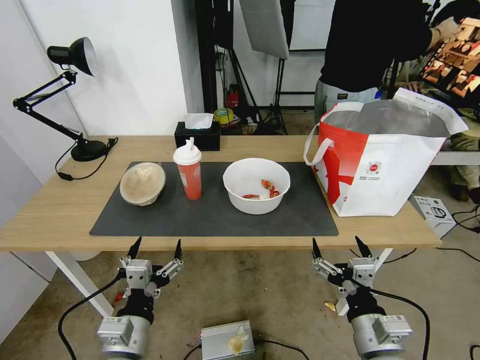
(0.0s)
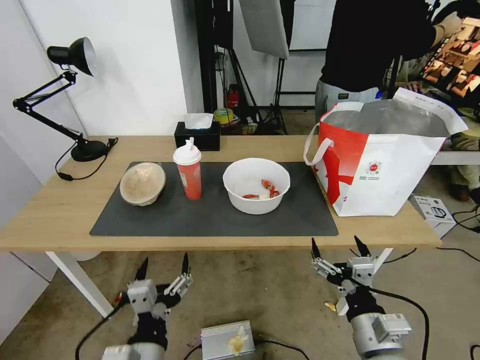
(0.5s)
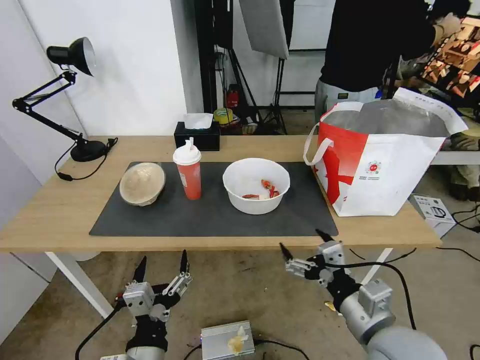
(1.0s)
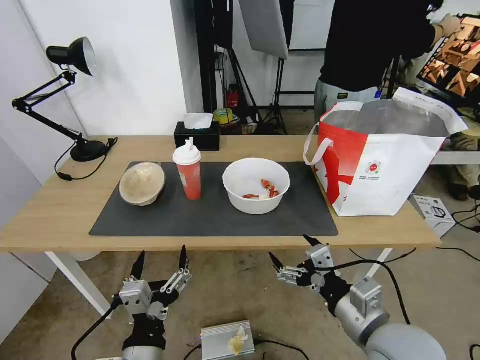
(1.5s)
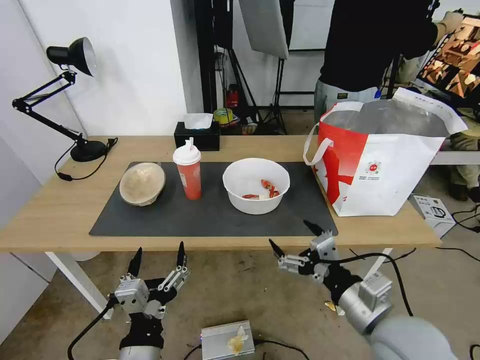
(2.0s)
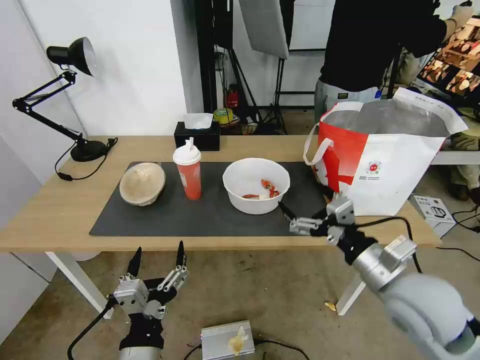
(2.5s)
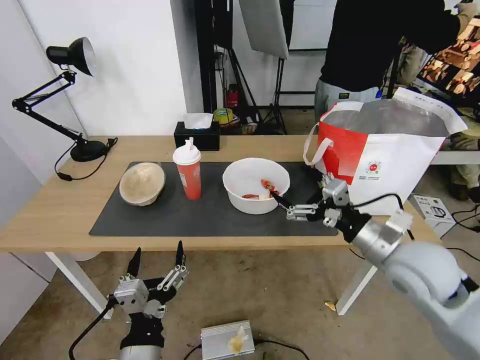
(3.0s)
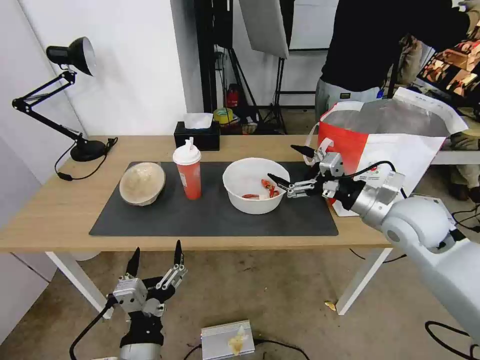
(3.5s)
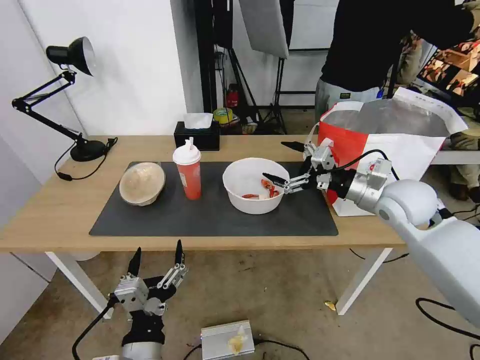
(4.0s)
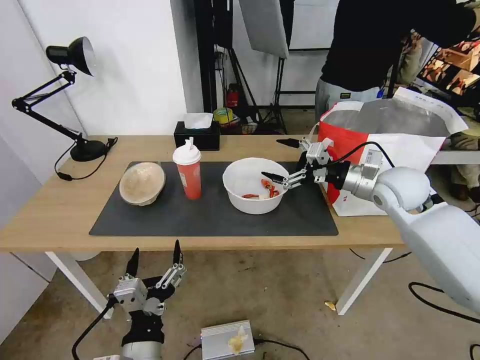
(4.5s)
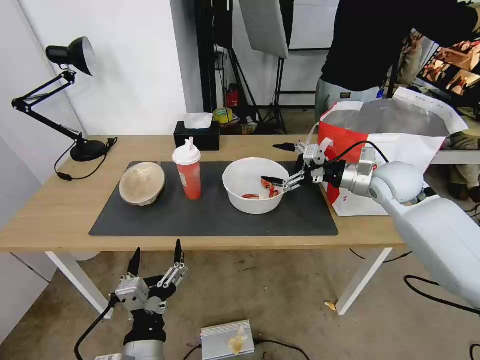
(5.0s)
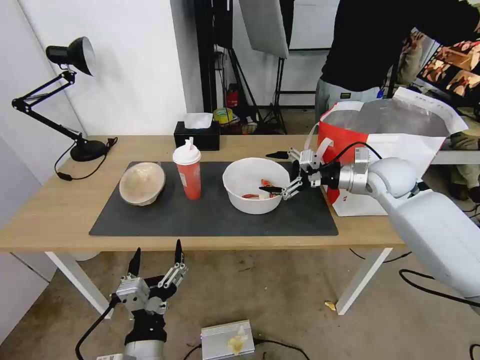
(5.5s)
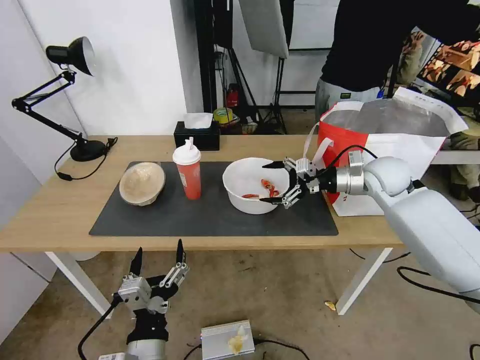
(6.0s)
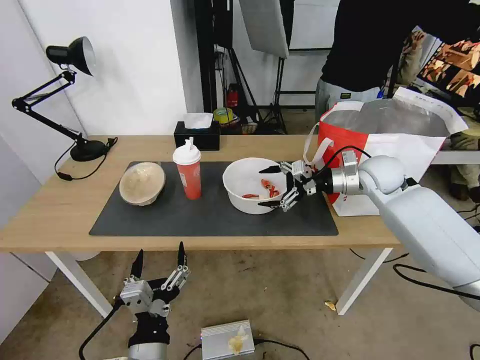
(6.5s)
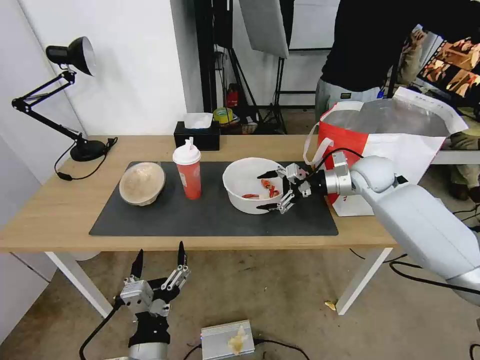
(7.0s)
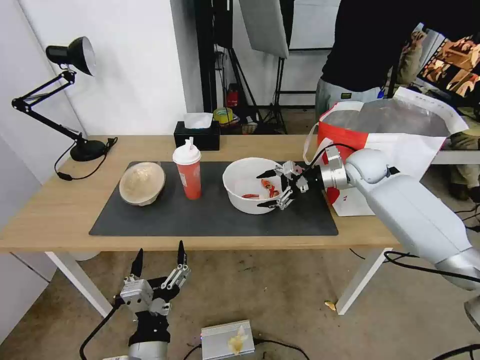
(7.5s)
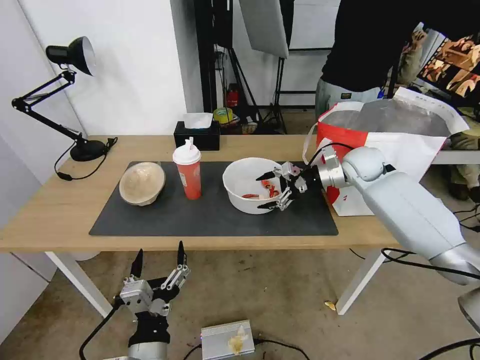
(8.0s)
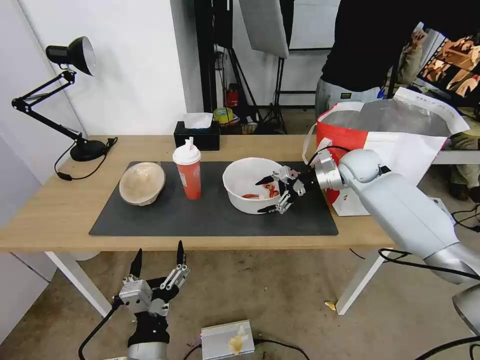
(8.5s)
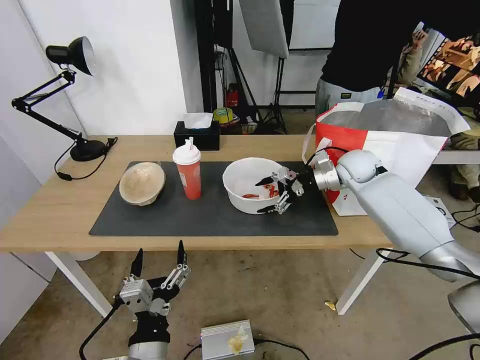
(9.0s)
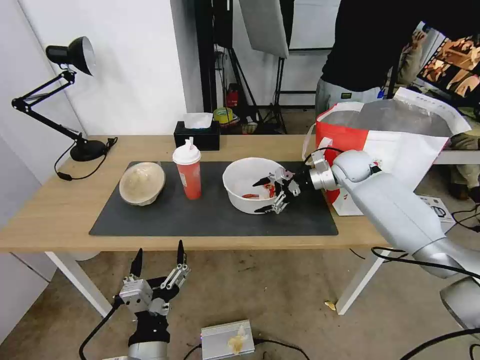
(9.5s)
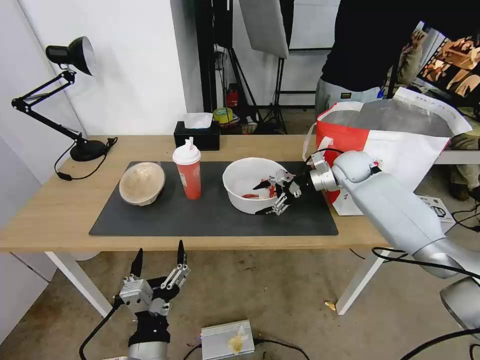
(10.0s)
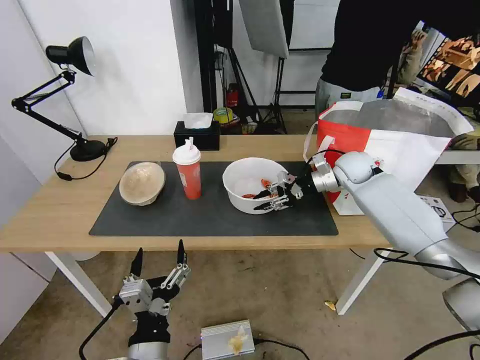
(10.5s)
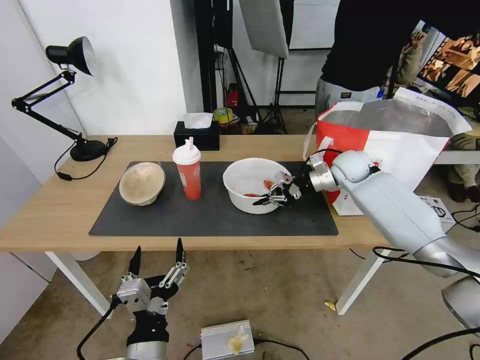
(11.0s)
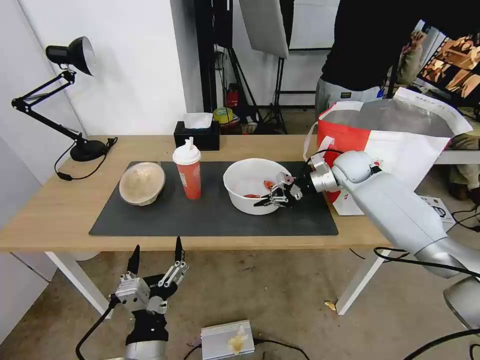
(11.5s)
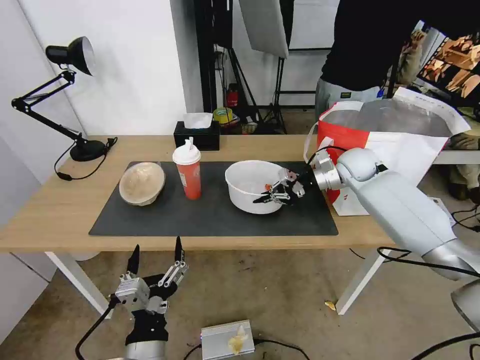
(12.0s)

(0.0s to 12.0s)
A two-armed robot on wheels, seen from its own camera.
Task of the whole recording: Pick up the trash from the table and place it into the takeout bag.
2.0s - 4.0s: The right gripper shifts some 25 cm forward.
4.0s - 6.0s: The right gripper travels forward by some 10 cm.
6.0s - 8.0s: The right gripper travels forward by some 5 cm.
8.0s - 10.0s: The grippers stay close to where they were, moving slightly.
10.0s - 12.0s: The right gripper closes its fingers.

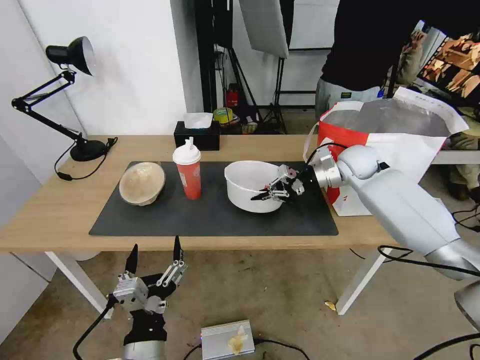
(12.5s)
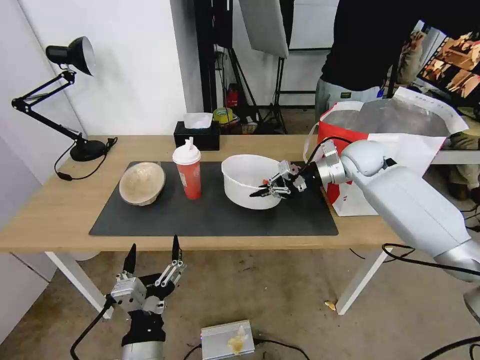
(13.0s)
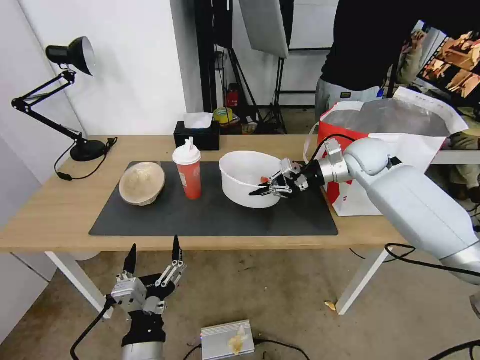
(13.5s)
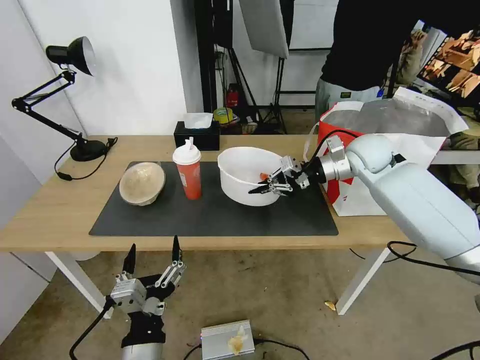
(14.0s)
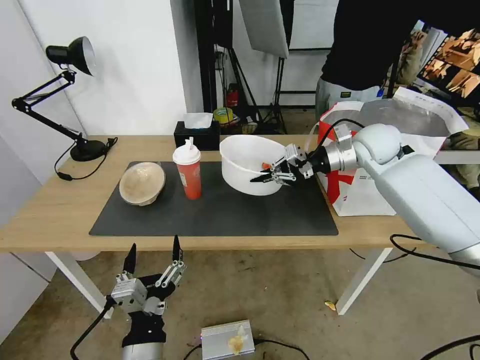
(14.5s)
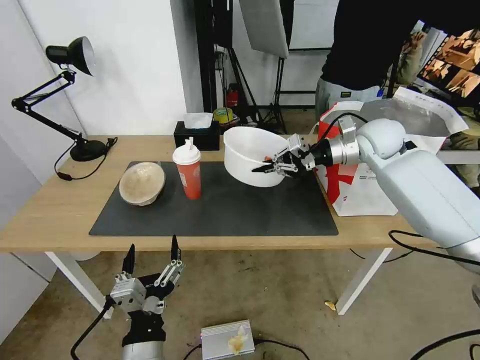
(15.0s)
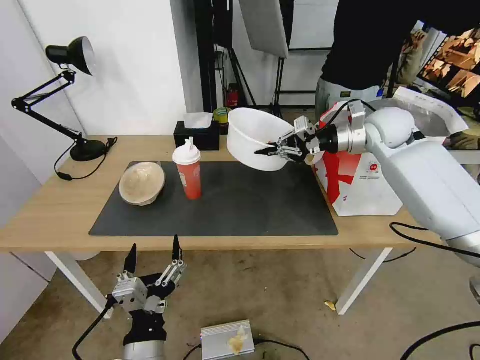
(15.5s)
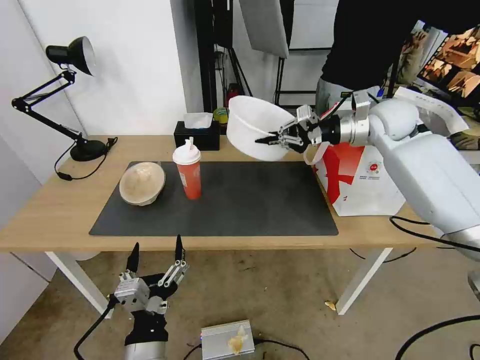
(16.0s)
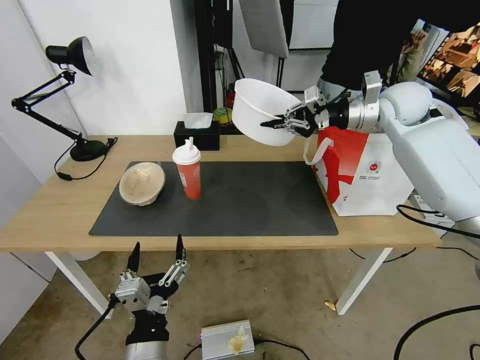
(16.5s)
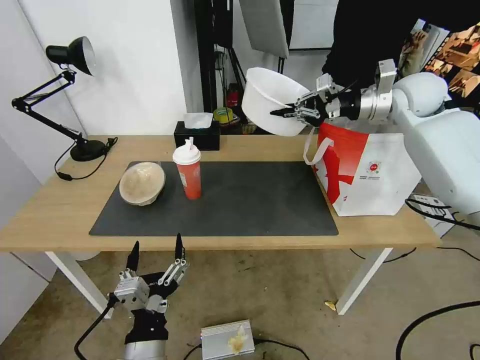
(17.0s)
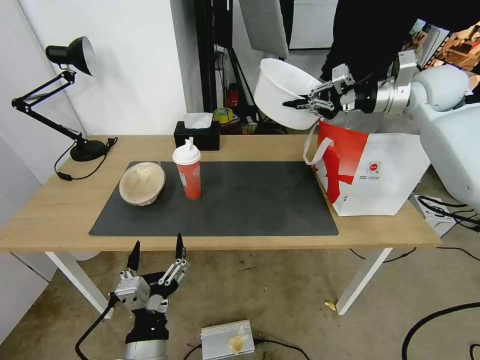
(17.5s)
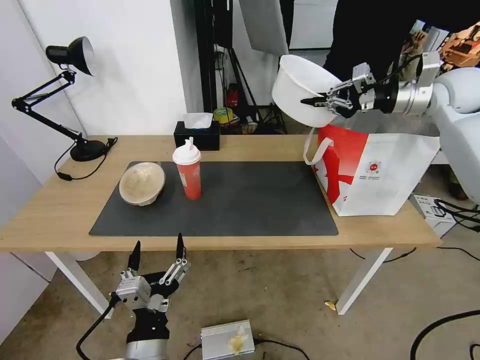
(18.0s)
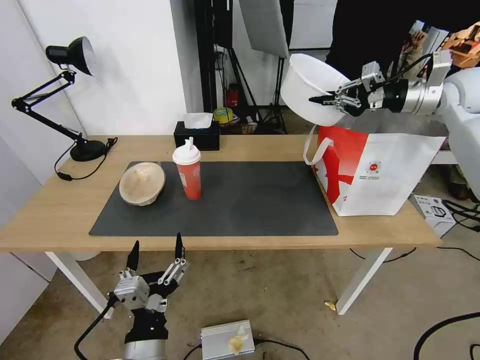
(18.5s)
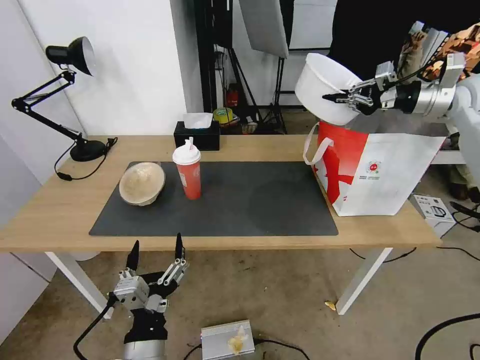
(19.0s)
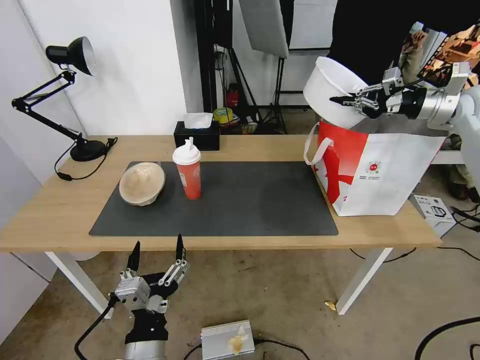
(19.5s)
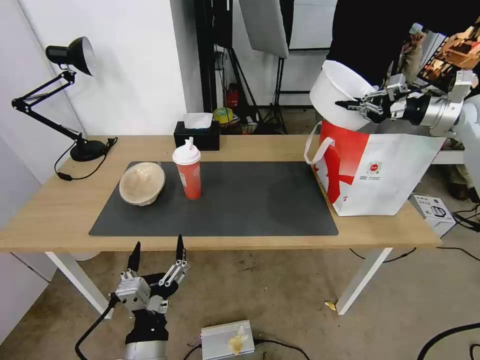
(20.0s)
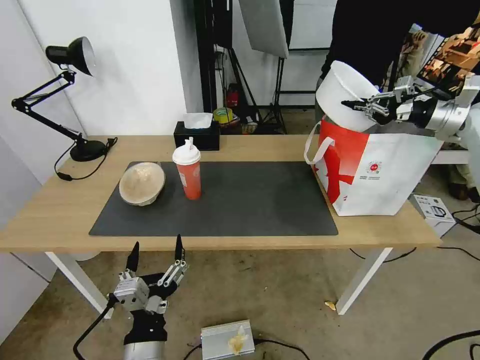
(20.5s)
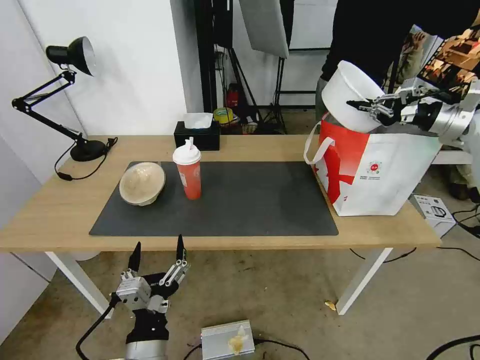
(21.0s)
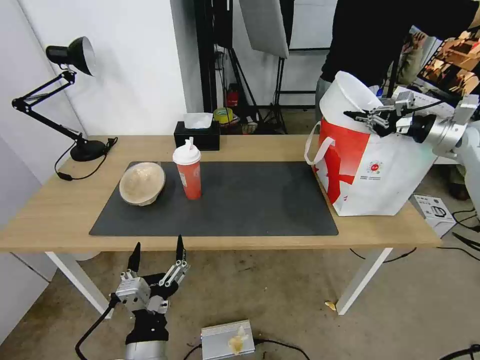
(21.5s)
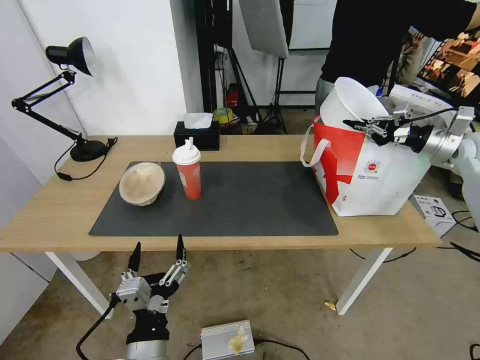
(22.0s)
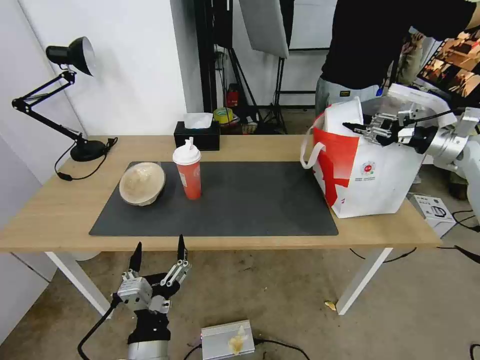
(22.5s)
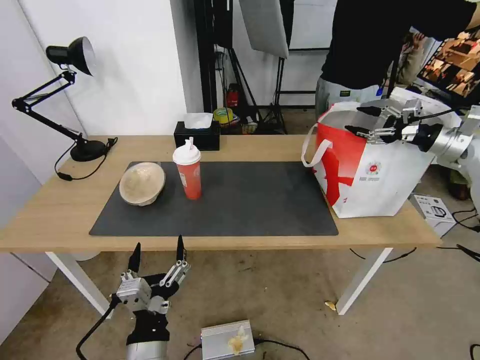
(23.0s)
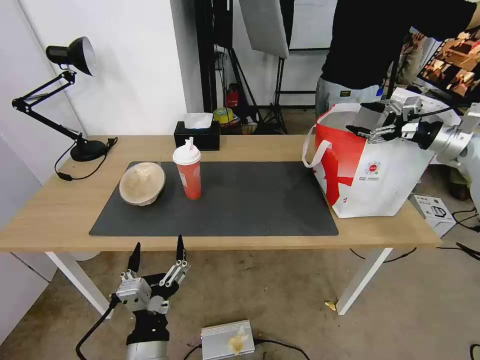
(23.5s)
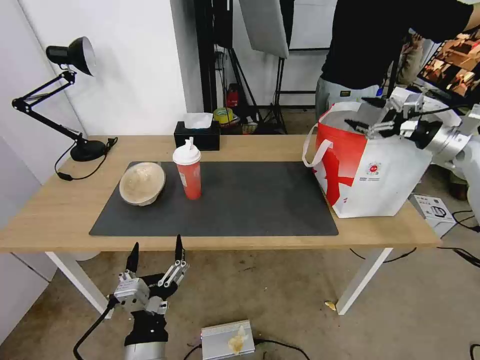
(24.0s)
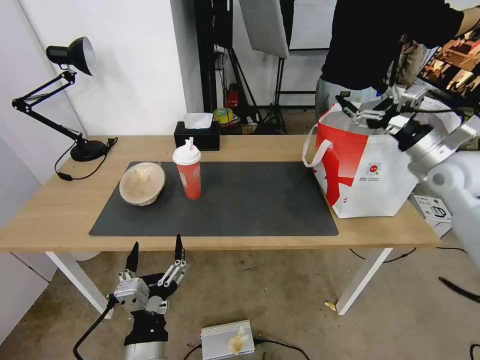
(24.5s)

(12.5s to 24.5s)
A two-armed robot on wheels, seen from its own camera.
Task of the whole recording: Pick up the trash from the table and place it into the takeout bag.
12.5s - 14.5s: The right gripper shifts about 5 cm upward.
14.5s - 16.5s: The right gripper travels upward by approximately 10 cm.
16.5s - 18.5s: The right gripper shifts roughly 10 cm to the right.
18.5s - 20.5s: The right gripper moves to the right and downward, approximately 10 cm.
20.5s - 22.5s: The right gripper heads downward, covering about 5 cm.
22.5s - 24.5s: The right gripper shifts roughly 10 cm to the left and backward, and opens.

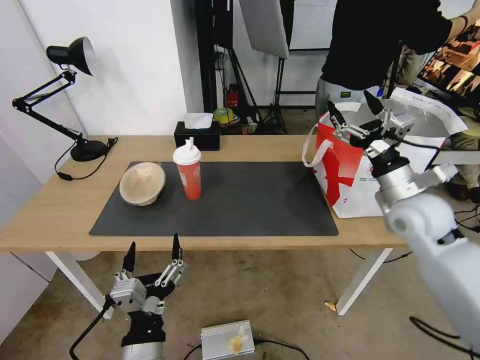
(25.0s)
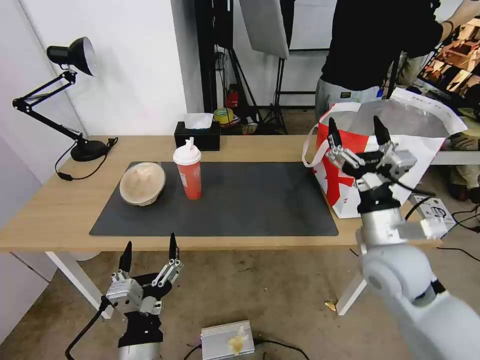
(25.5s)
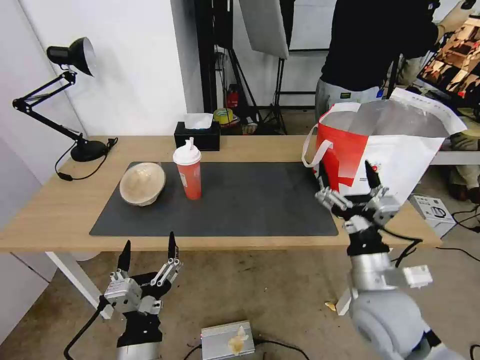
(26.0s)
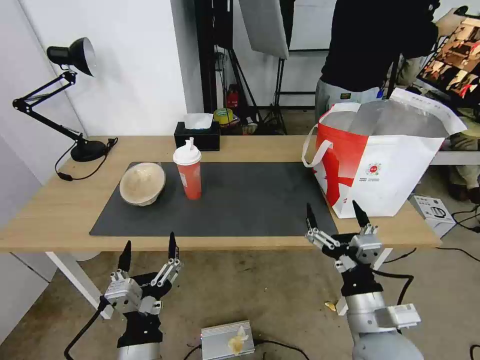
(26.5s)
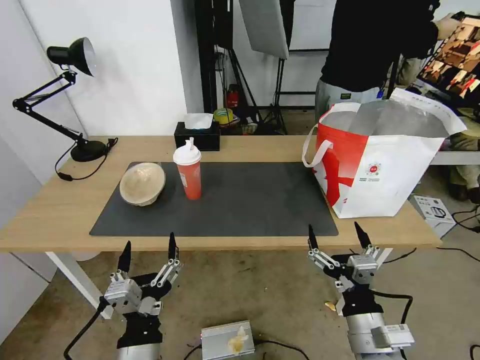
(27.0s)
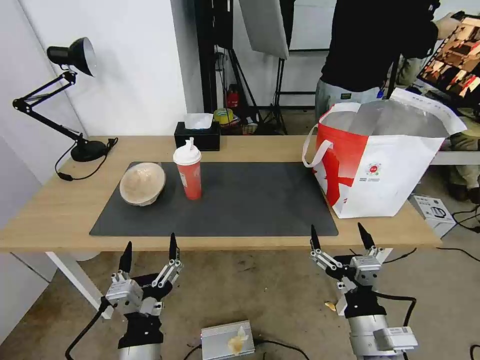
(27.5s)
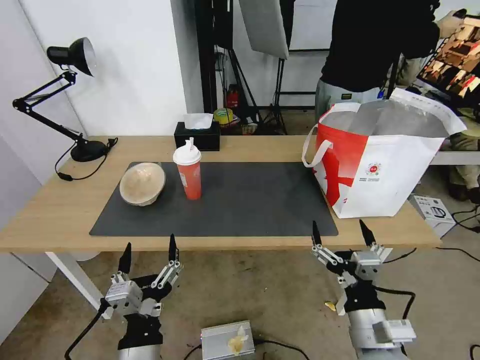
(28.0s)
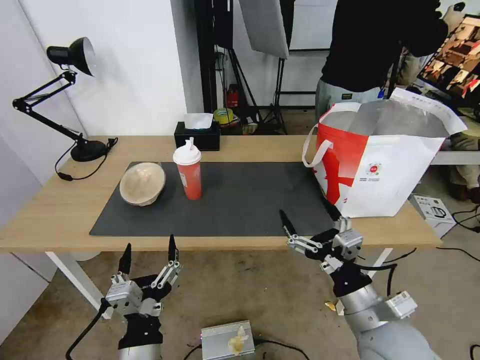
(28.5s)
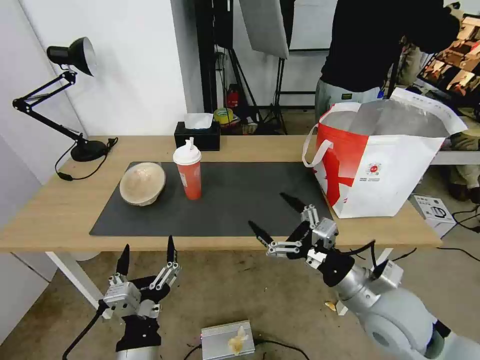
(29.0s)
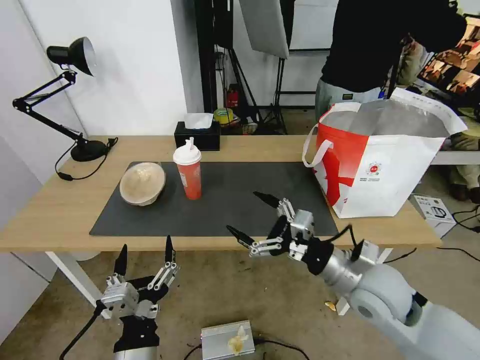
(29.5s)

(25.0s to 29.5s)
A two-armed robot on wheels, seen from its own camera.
Task of the whole recording: Pick up the trash from the table and place it into the takeout bag.
25.0s - 27.0s: The right gripper goes some 30 cm backward, downward and to the left.
27.0s - 29.5s: The right gripper is displaced forward and upward by approximately 15 cm.
